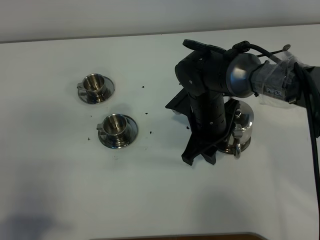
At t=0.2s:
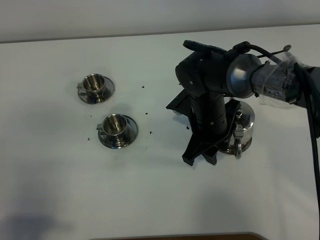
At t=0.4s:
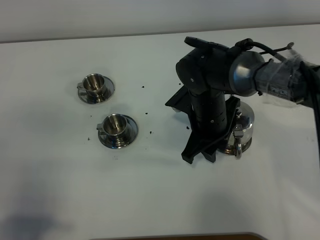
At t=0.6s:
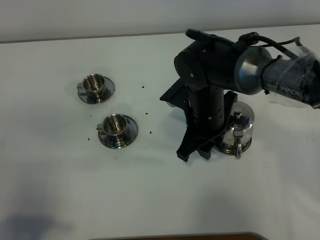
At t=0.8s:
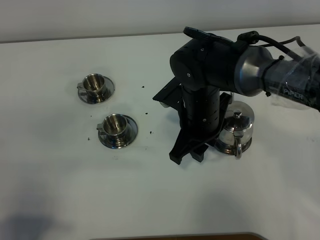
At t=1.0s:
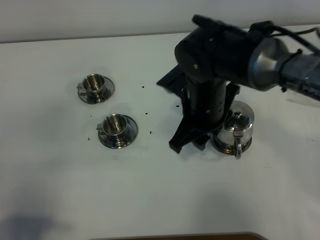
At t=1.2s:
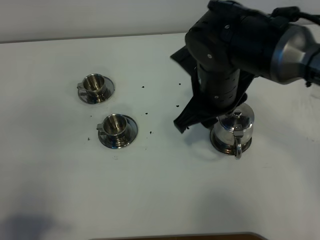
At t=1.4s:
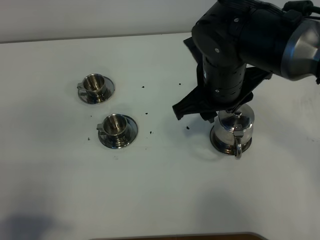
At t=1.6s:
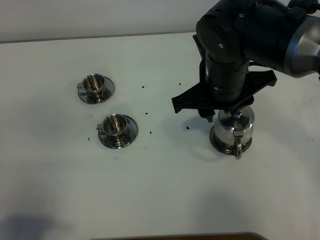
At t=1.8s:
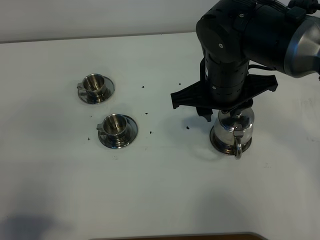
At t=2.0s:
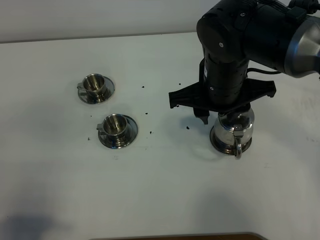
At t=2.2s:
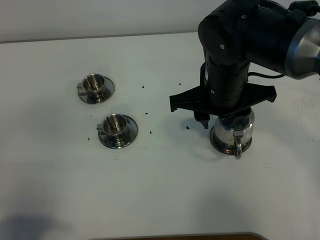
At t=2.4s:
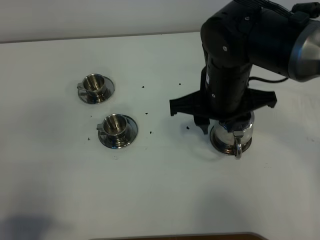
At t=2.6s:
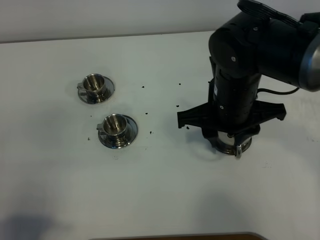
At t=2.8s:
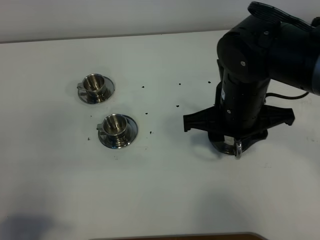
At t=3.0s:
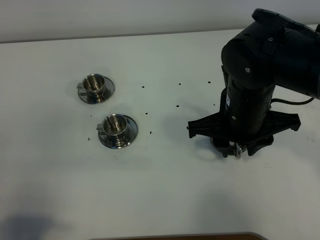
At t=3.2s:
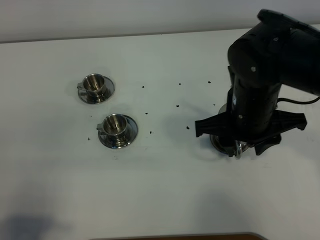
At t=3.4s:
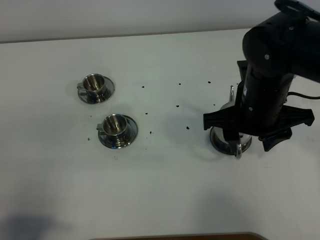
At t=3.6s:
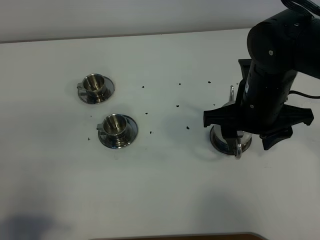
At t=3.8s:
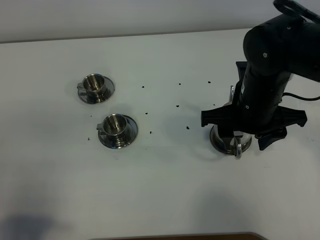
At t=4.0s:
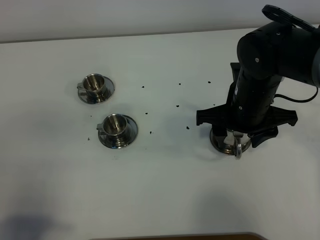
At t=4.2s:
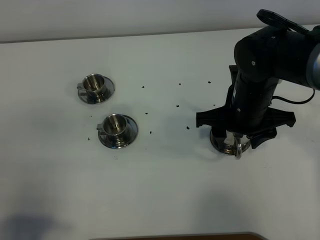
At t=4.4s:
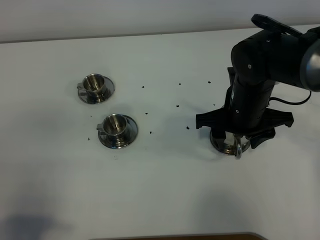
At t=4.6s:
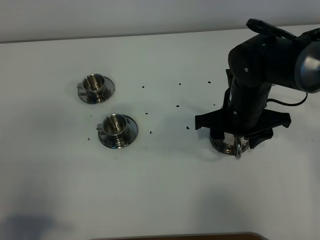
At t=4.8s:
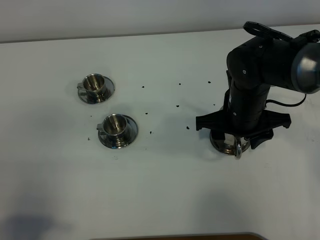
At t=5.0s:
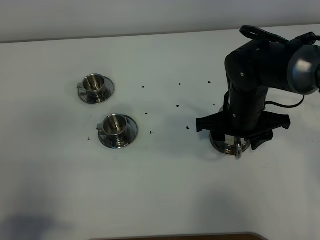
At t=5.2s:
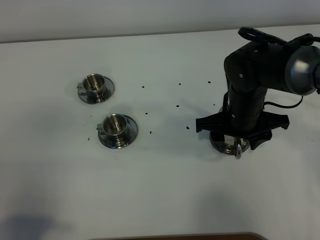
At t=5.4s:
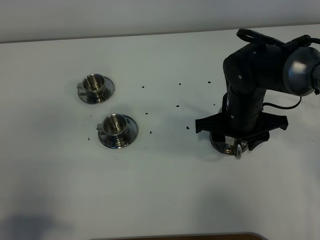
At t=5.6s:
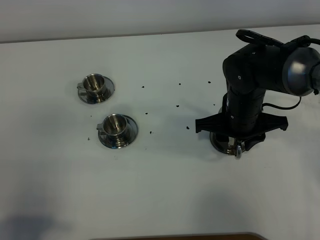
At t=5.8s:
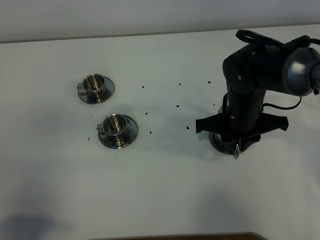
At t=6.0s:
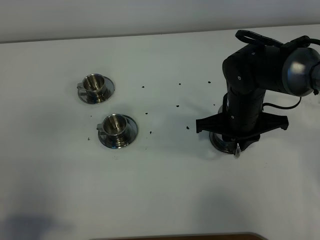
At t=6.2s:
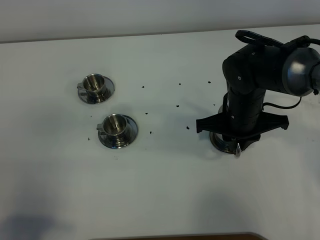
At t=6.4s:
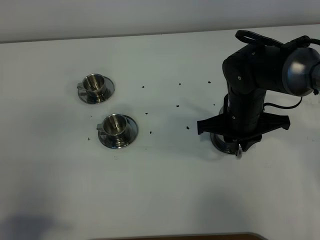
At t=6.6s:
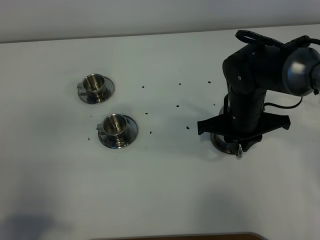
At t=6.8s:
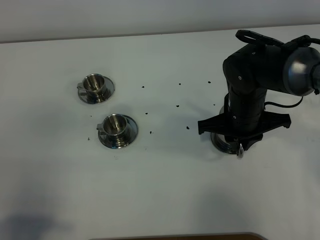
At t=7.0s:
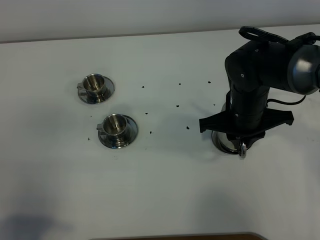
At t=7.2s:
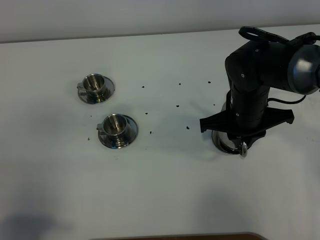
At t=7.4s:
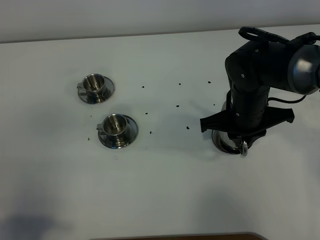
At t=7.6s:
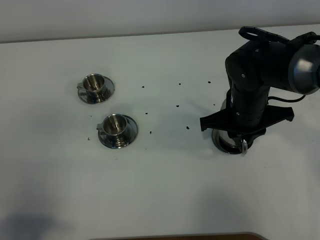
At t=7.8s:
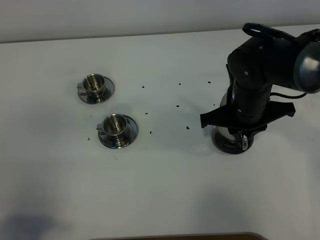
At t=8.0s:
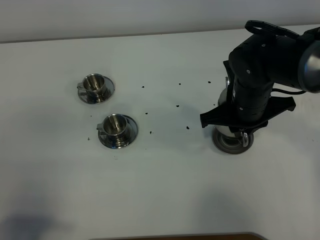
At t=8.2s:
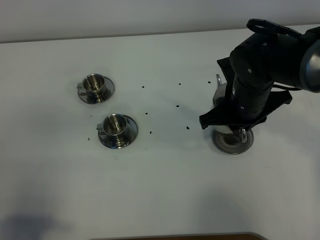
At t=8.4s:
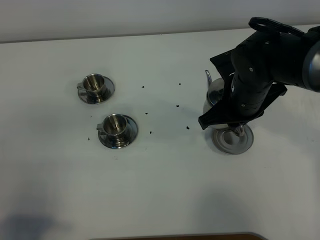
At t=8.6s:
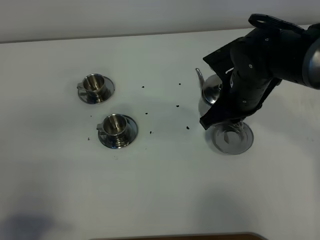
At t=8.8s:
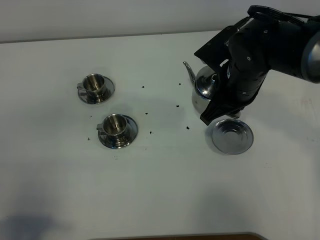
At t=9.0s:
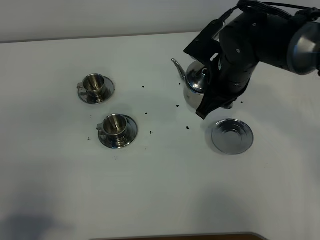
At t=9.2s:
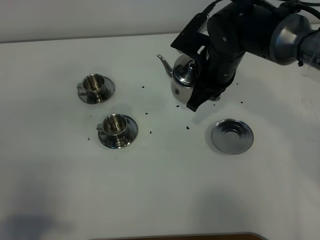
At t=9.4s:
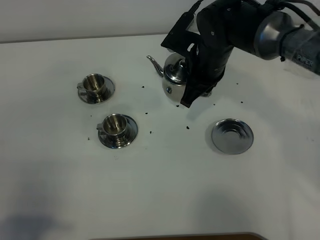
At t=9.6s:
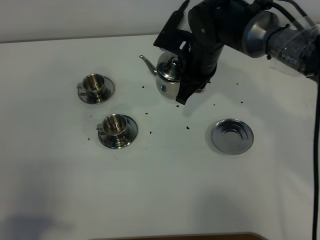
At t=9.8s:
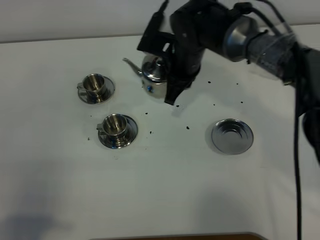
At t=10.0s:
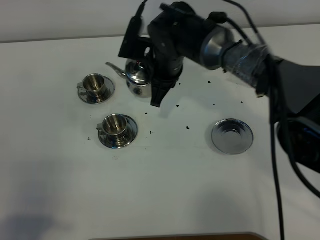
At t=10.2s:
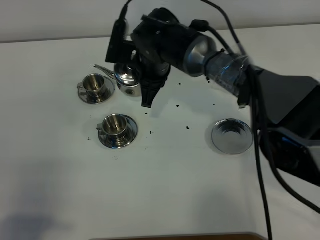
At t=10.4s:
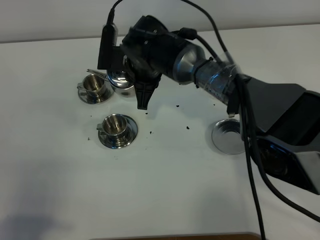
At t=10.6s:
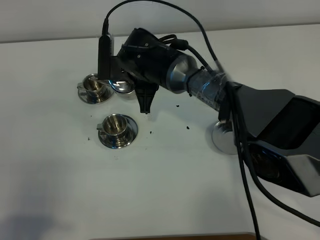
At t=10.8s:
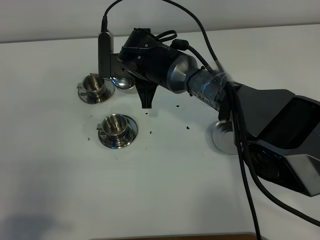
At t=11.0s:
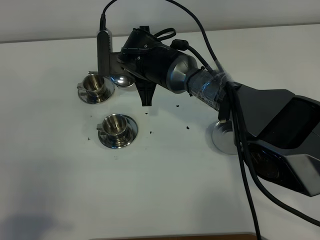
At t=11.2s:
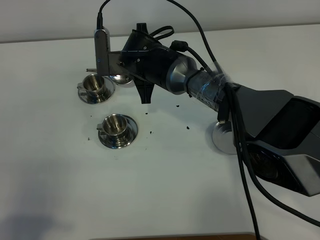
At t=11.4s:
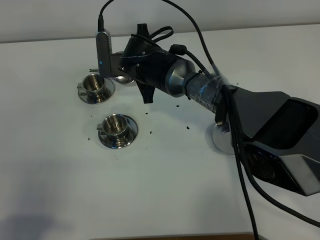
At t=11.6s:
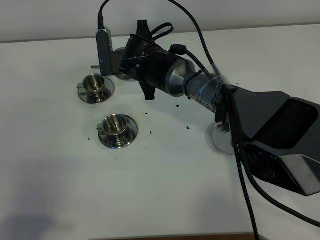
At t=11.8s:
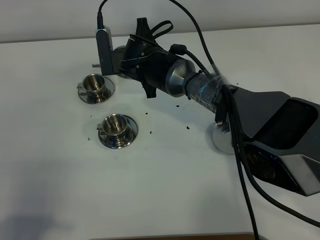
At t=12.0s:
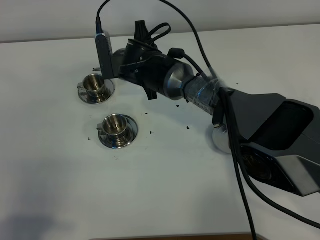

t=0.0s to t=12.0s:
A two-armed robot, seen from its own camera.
Task of the whole recording: grasp the stainless steel teapot and pour the tea into the two stainless steel teacups one by one, put the stainless steel teapot back in its original place.
Step, t=0.0s to t=7.6s: Pick up the teapot with the right gripper.
t=0.0s to t=1.6s: The right gripper goes some 10 cm upward.
t=1.6s to t=3.0s: The right gripper moves about 5 cm.
t=3.0s to t=4.4s: The right gripper travels downward by approximately 5 cm, and opens up.
t=4.4s to t=6.0s: The right gripper closes.
t=6.0s to t=7.6s: The grippers stay close to where they were, moving slightly.
t=7.6s to t=9.0s: The right gripper changes place by approximately 5 cm.
t=9.0s to t=10.4s: The right gripper heads to the left, covering approximately 15 cm.

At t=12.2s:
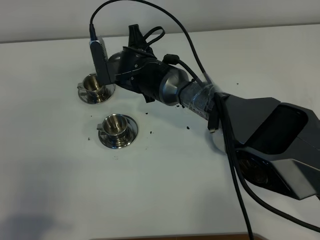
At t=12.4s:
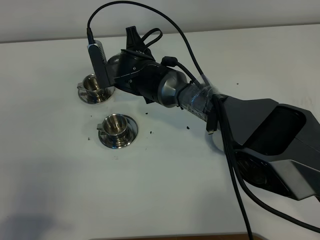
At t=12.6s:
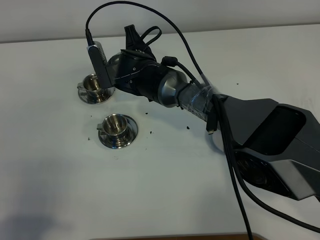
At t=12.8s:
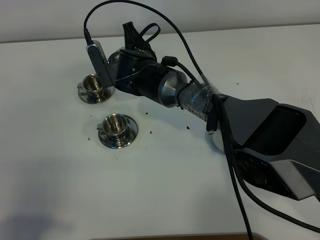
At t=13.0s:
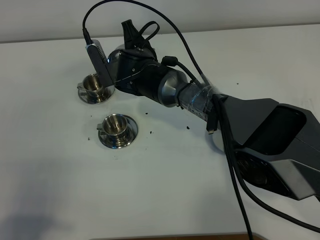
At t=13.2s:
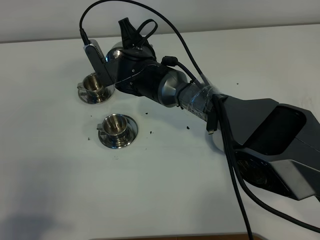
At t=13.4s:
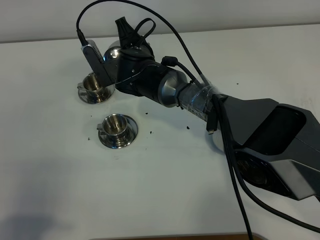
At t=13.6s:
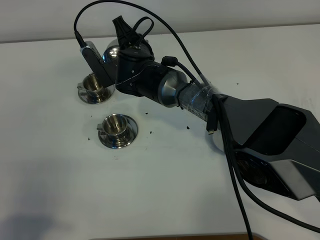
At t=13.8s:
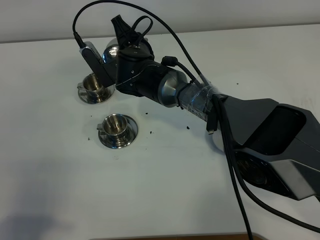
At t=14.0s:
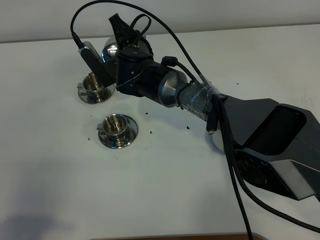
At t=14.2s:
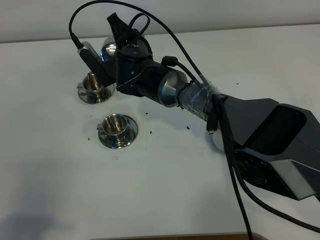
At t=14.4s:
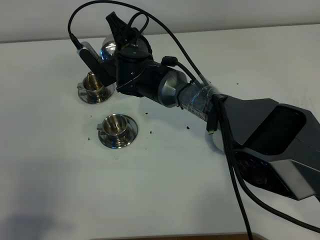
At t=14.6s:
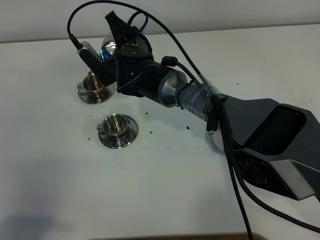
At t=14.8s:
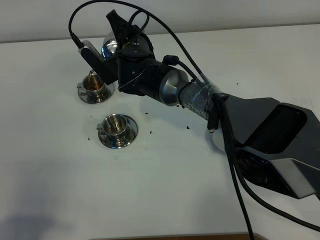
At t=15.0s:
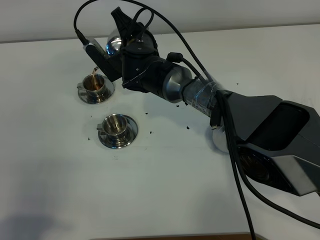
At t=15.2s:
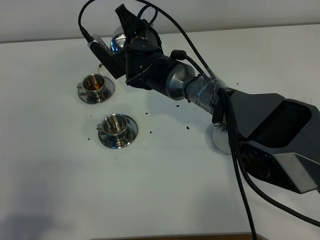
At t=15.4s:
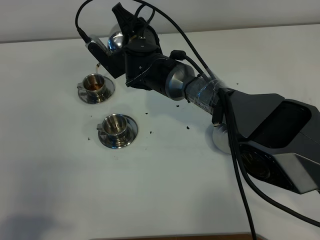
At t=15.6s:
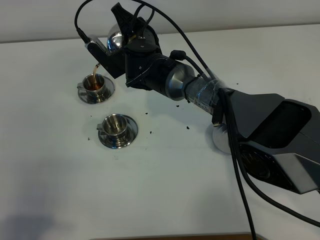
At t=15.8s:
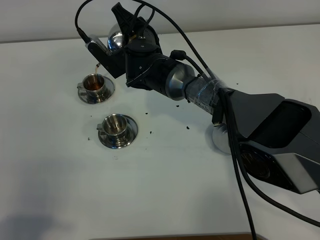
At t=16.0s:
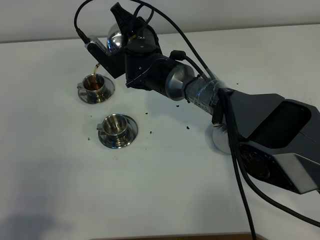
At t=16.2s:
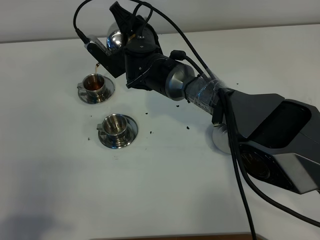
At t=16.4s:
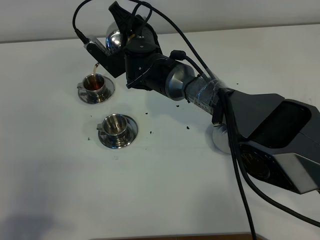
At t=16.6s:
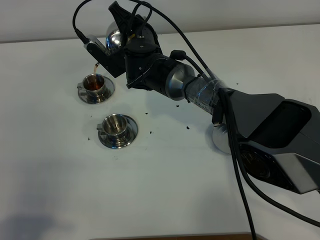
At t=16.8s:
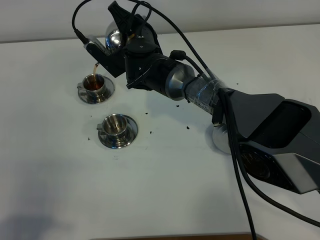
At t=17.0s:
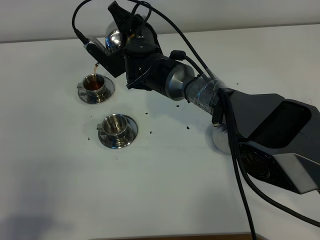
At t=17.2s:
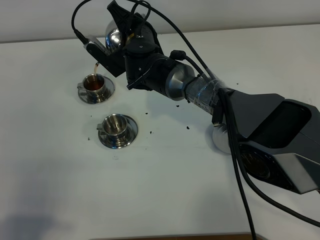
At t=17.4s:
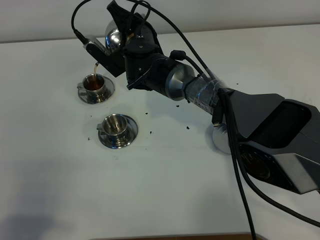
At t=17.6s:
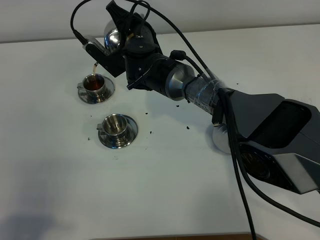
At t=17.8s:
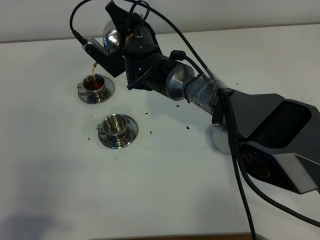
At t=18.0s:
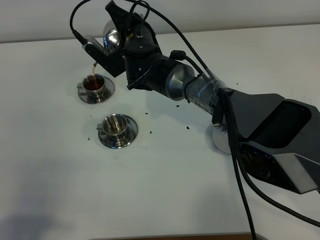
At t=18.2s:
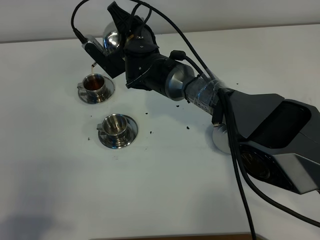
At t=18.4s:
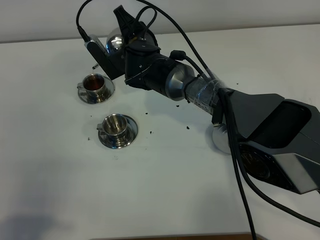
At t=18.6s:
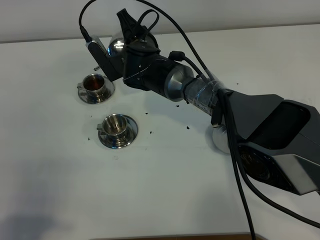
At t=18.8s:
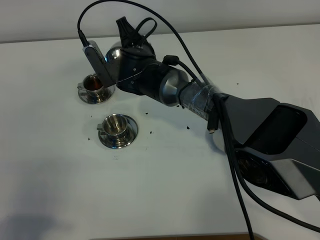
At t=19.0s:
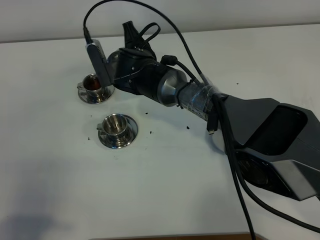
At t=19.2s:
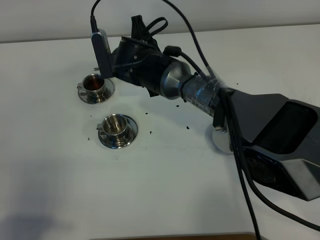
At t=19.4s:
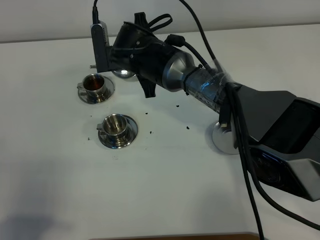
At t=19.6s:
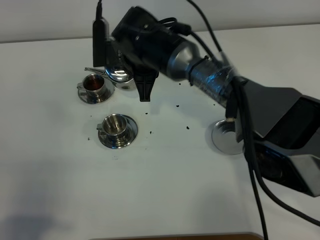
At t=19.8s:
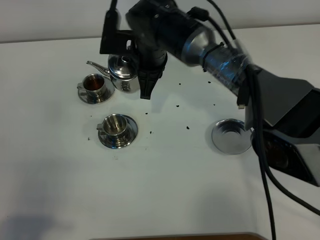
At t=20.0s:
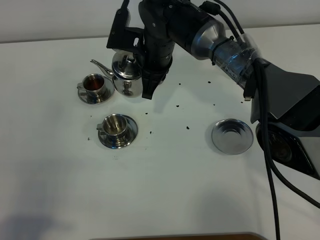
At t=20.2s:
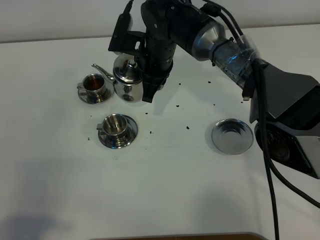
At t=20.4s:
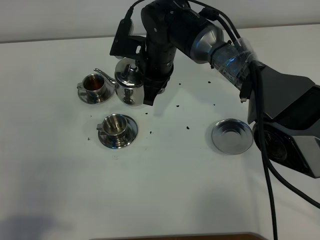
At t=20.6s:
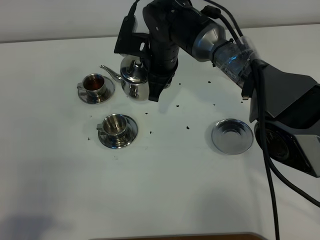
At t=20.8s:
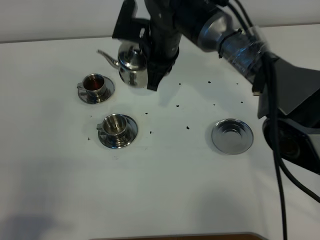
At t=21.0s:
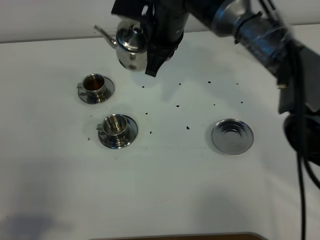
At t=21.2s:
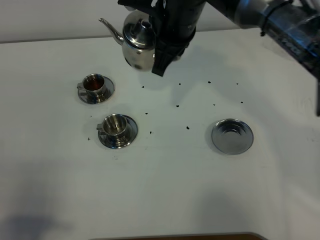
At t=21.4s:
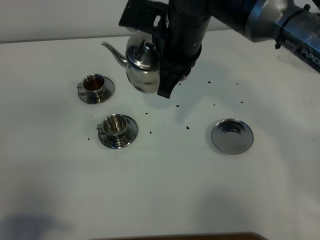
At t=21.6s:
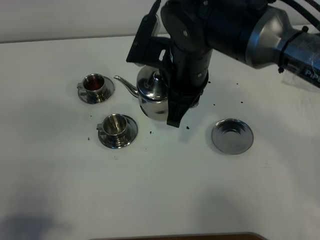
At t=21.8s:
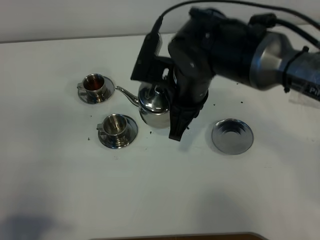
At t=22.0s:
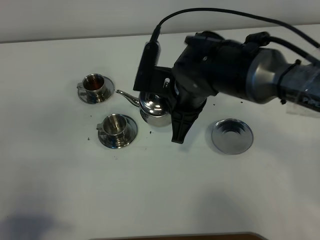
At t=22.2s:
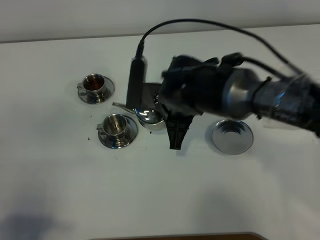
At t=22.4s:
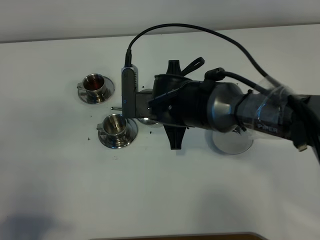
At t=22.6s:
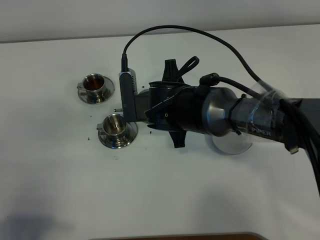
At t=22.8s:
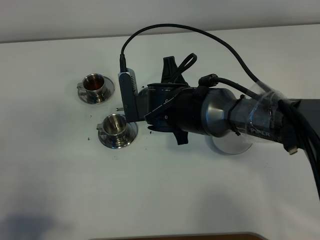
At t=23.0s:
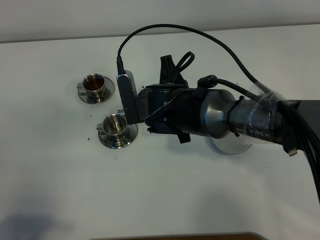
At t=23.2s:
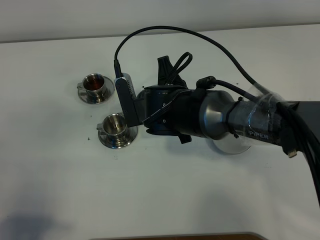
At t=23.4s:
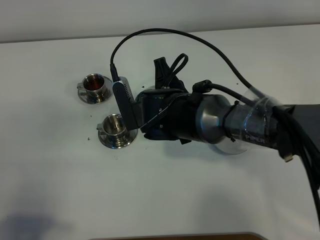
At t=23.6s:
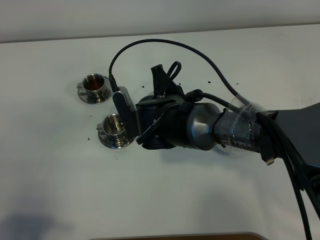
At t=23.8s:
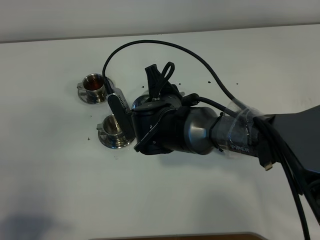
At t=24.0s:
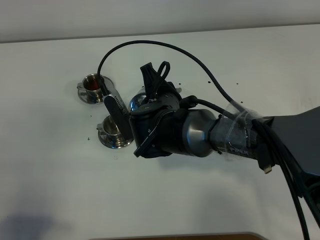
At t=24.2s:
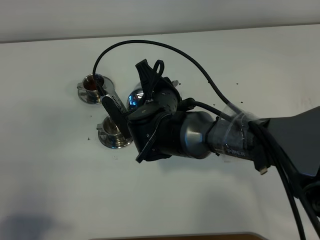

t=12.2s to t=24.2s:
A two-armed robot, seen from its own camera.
Task of the whole recording: grasp the stainless steel teapot and pour the tea into the two stainless steel teacups one by one, put the stainless steel teapot back in its original place.
t=13.8s to t=16.6s: The grippers make only small movements.
t=16.6s to t=18.2s: Both grippers stay put.
t=18.2s to t=19.8s: The right gripper ends up approximately 5 cm from where it was.
t=19.8s to t=21.2s: The right gripper moves upward and to the right, approximately 10 cm.
t=21.2s to t=22.6s: The right gripper shifts some 15 cm downward and backward.
